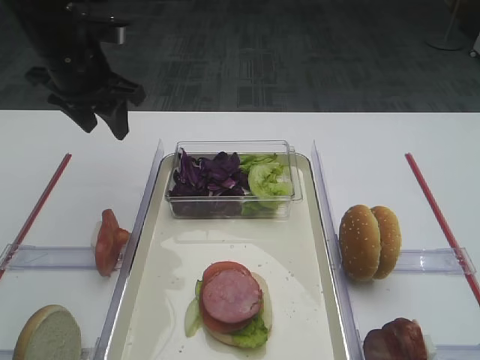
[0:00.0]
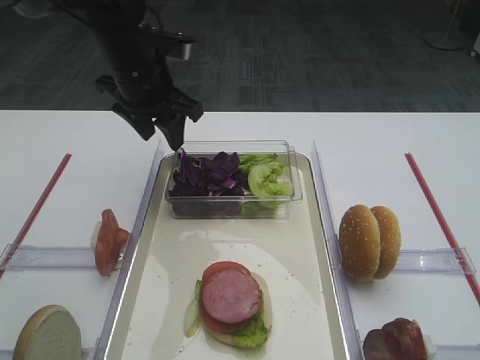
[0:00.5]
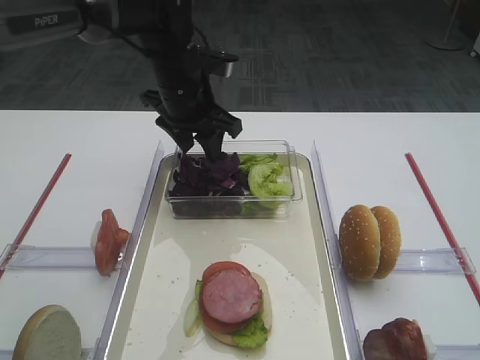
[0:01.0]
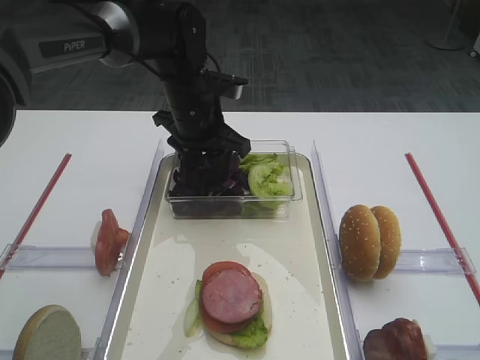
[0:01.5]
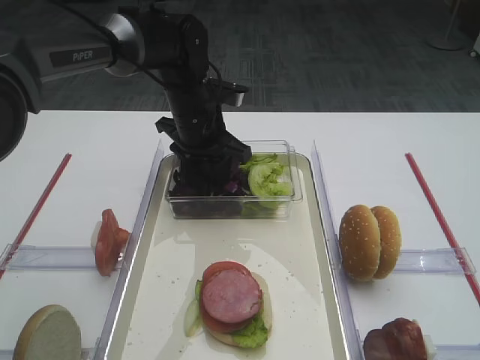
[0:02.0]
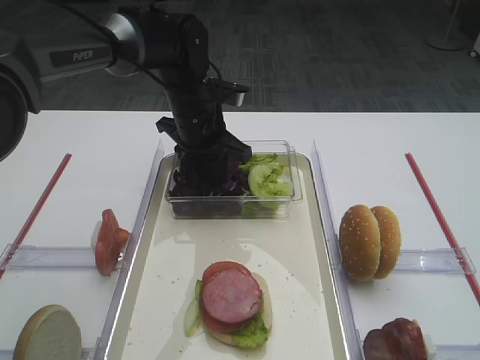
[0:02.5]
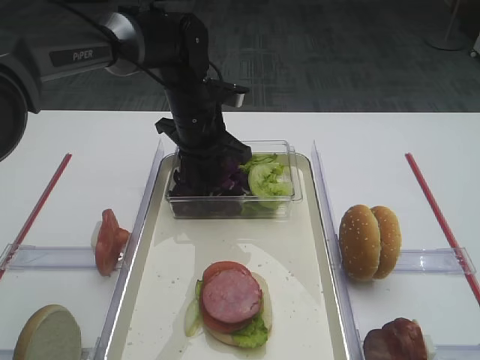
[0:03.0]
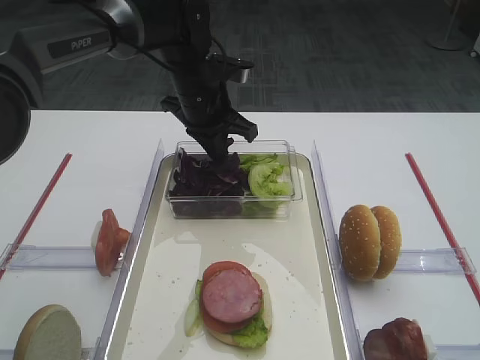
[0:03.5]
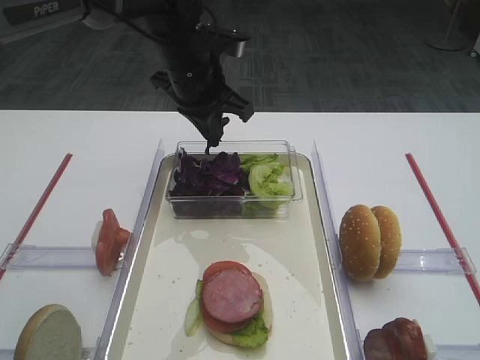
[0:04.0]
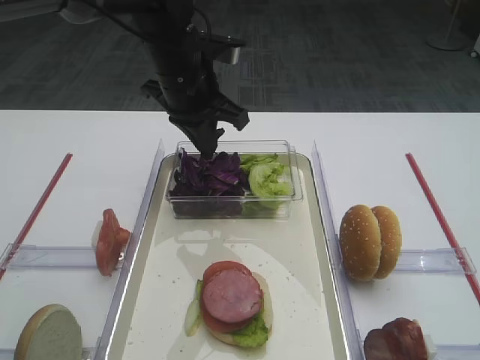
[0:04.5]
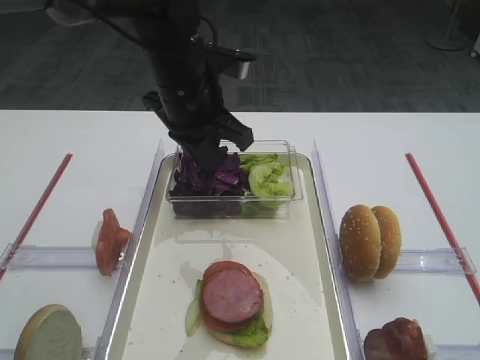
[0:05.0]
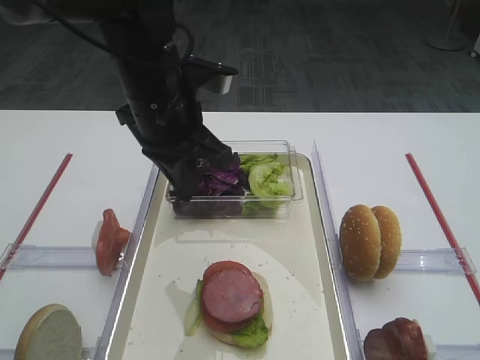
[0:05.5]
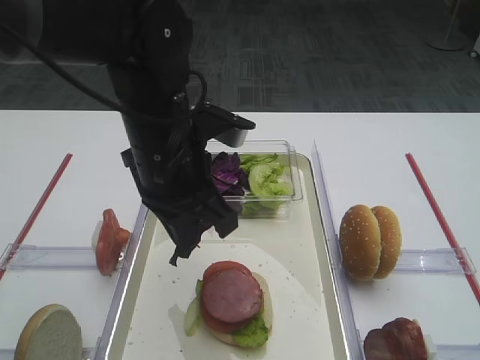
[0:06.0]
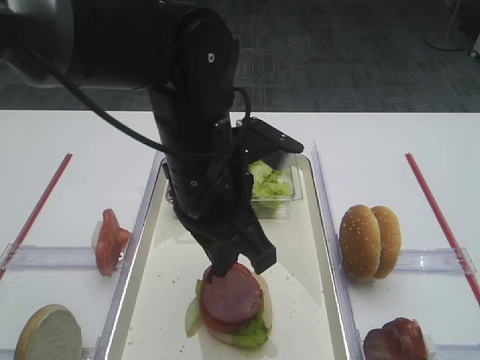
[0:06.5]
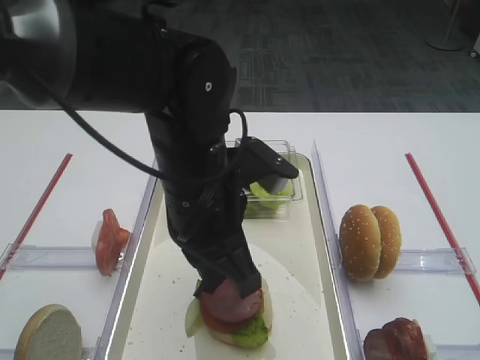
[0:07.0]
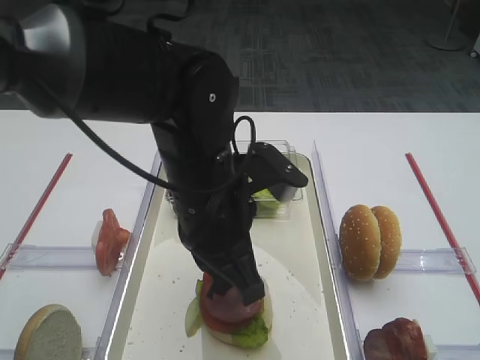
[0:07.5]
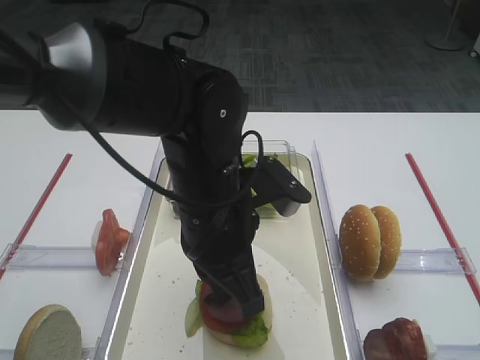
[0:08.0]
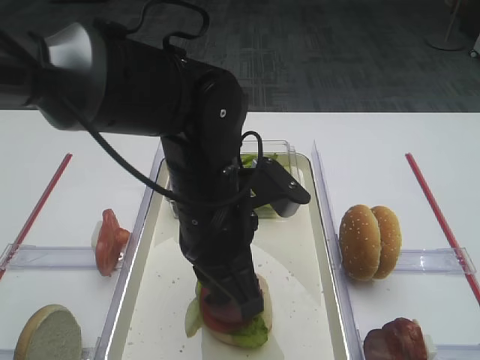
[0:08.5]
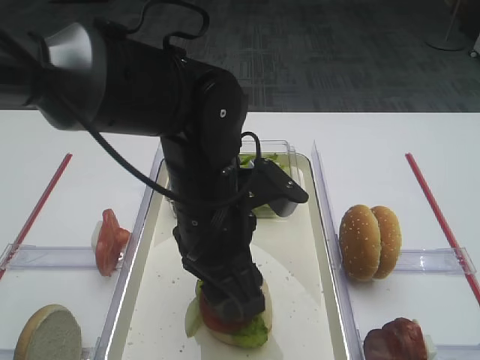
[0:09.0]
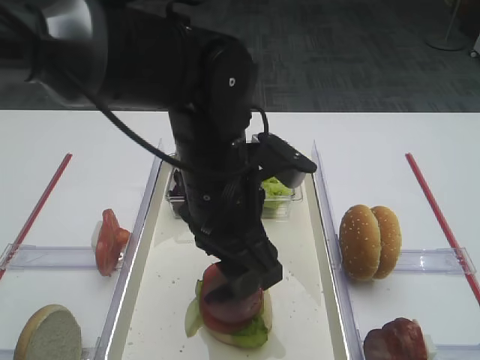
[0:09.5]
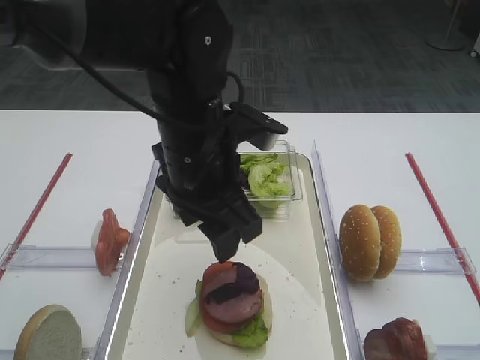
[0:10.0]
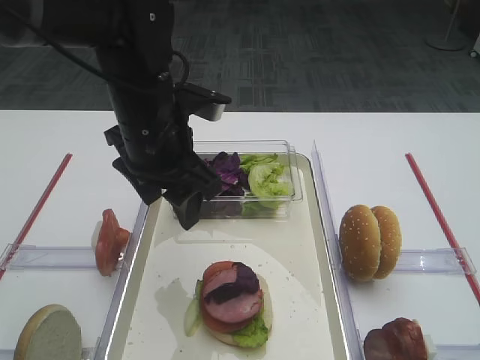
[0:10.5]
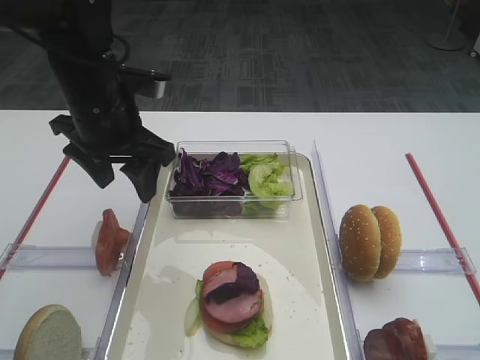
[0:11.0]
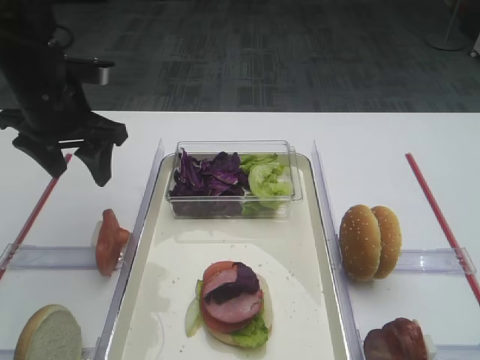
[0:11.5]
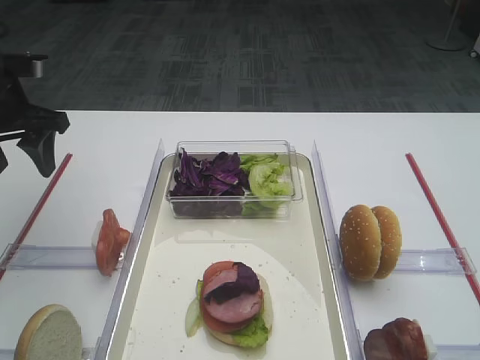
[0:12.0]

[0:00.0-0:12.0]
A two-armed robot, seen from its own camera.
Step, 0:00.0 to 0:04.0: Pick up the purple cabbage with the left gripper.
Step, 0:04.5 to 0:09.5: Place the purple cabbage on the cutlet with the left gripper.
0:00.0 to 0:02.0: The left gripper heads to the right and downward, covering roughly 15 cm.
0:02.0 to 0:04.0: The left gripper shifts about 5 cm upward, and closes its fingers.
0:04.0 to 0:06.0: The left gripper travels backward by approximately 15 cm.
0:06.0 to 0:08.0: The left gripper moves about 5 cm.
0:08.0 to 0:10.0: The left gripper moves about 5 cm, and opens.
0:10.0 to 0:12.0: The left gripper is displaced to the left by about 25 cm.

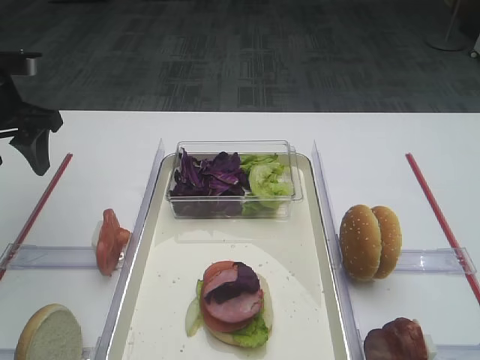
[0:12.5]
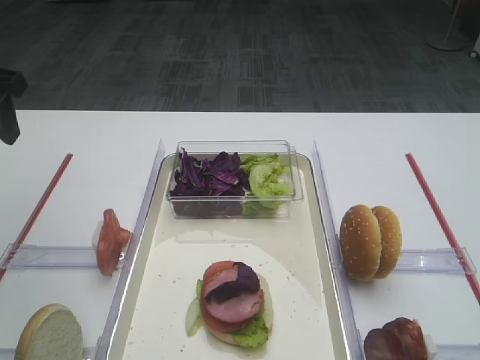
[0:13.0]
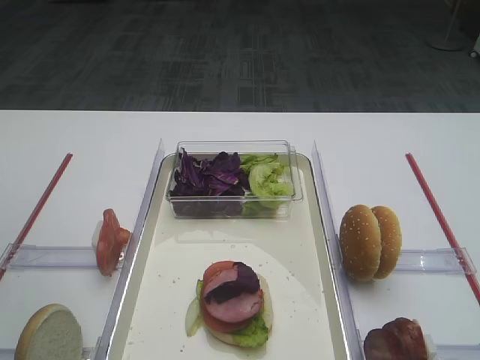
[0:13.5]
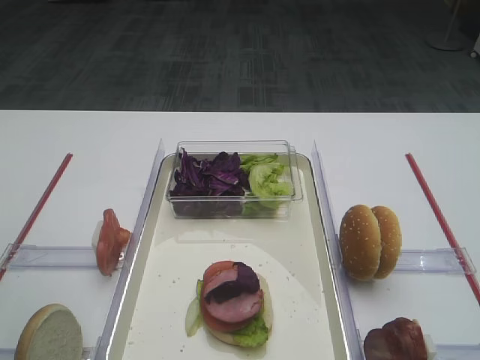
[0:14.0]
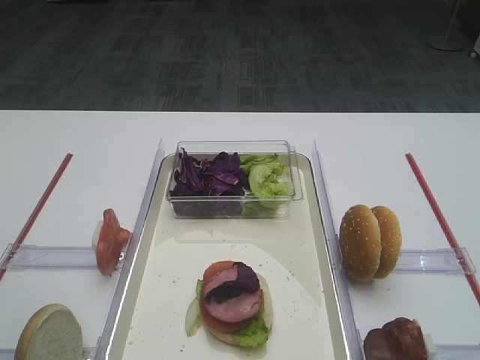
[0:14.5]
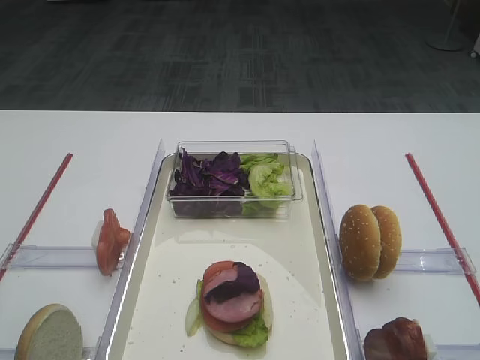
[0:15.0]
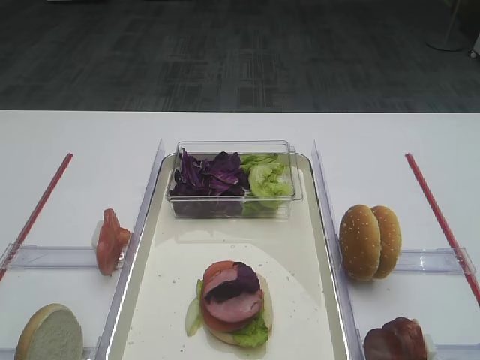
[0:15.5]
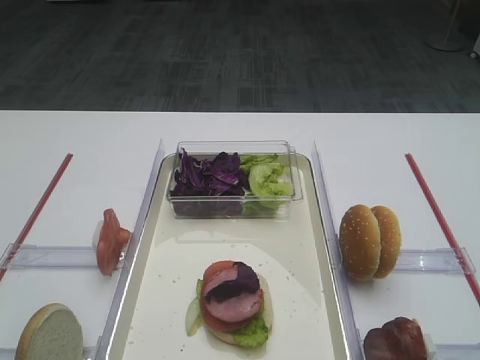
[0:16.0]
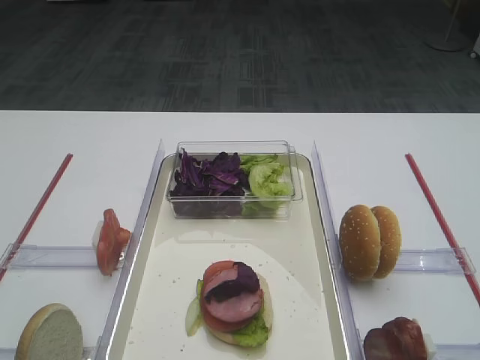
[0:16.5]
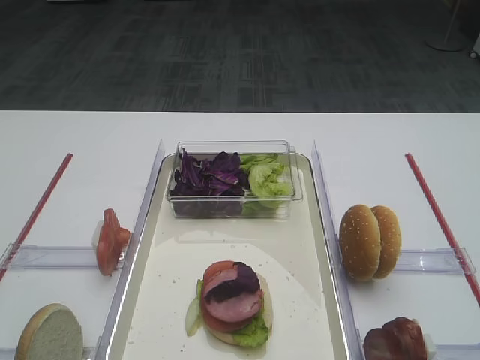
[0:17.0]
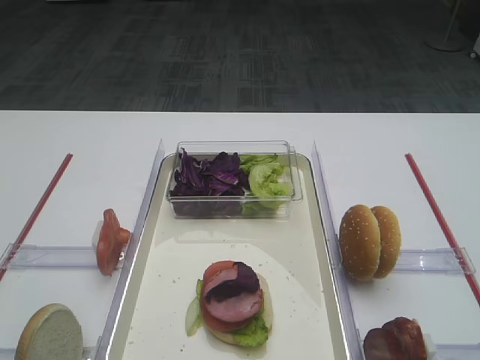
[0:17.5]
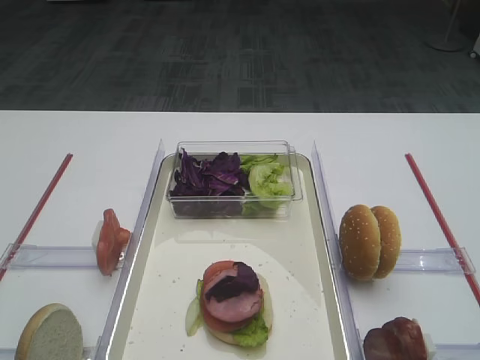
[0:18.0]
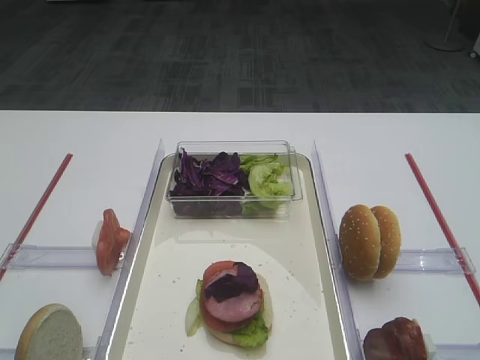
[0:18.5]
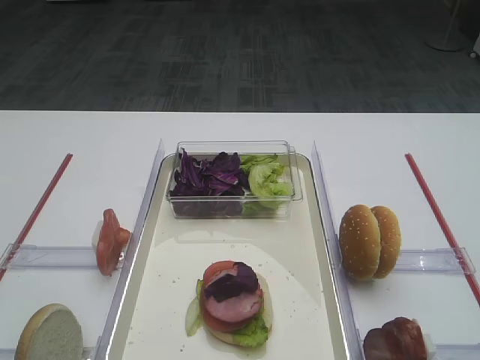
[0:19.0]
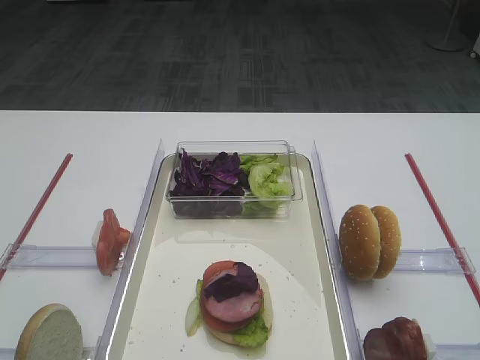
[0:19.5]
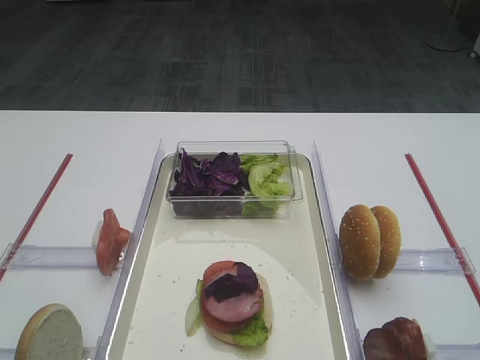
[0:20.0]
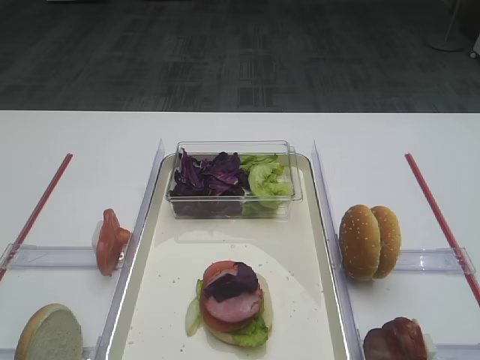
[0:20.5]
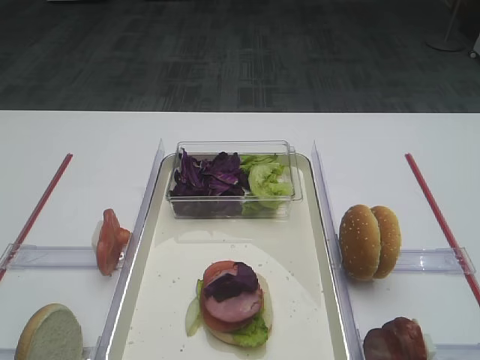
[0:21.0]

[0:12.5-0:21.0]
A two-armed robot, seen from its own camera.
0:12.5 to 0:14.5: The left gripper travels backward by about 20 cm.
0:19.0 to 0:21.0: The two grippers keep their place.

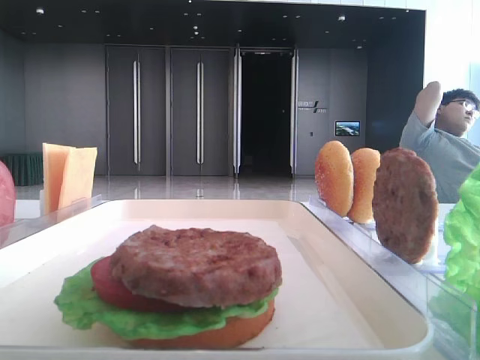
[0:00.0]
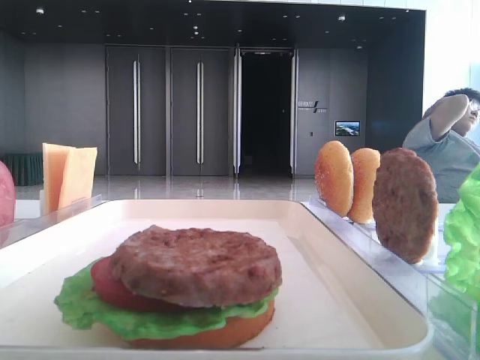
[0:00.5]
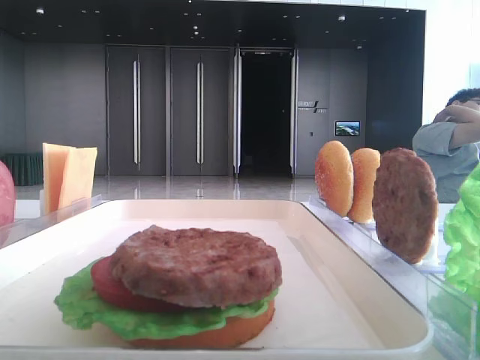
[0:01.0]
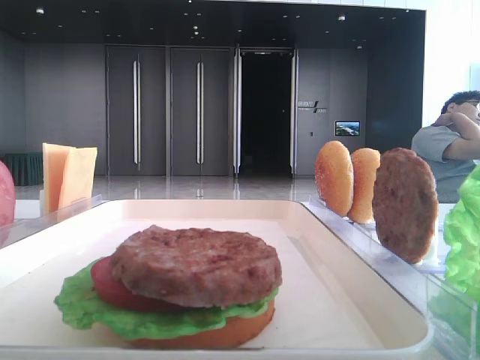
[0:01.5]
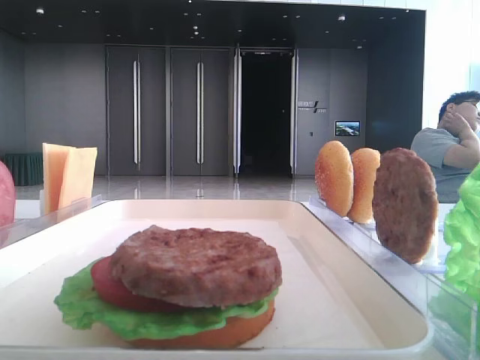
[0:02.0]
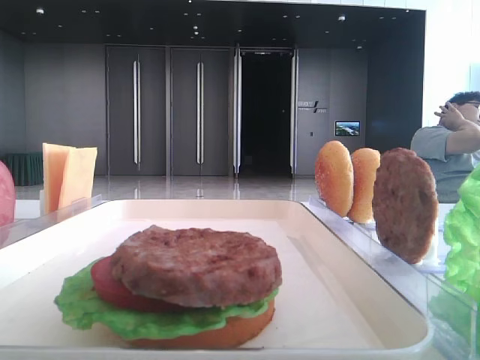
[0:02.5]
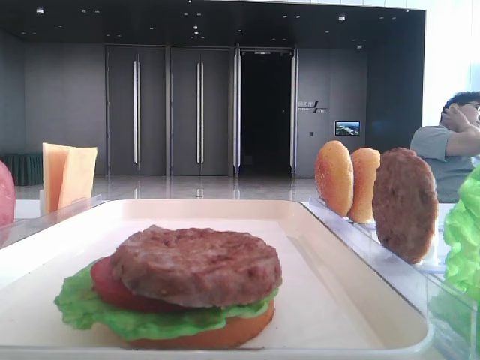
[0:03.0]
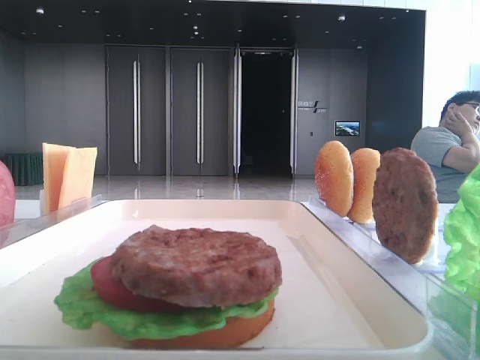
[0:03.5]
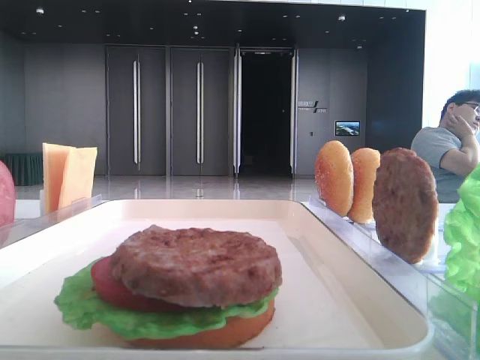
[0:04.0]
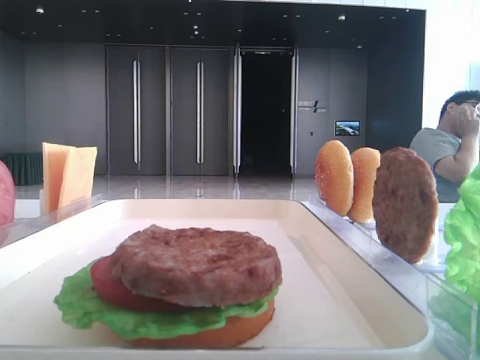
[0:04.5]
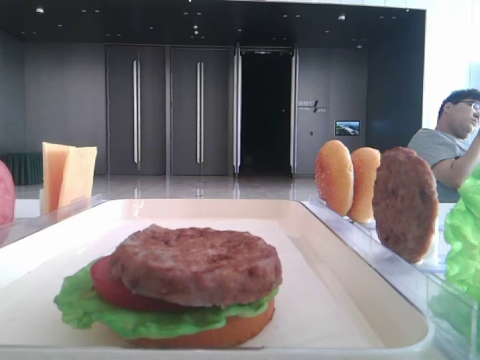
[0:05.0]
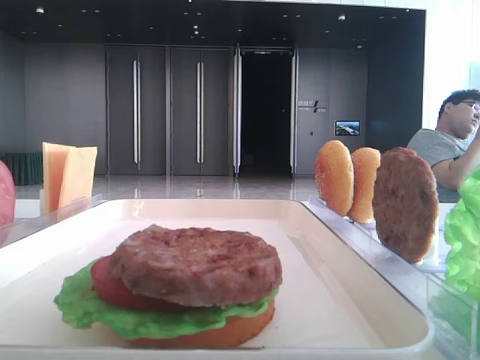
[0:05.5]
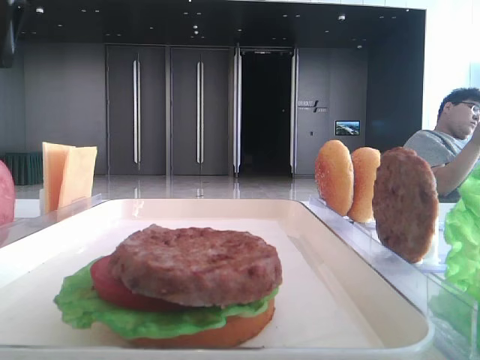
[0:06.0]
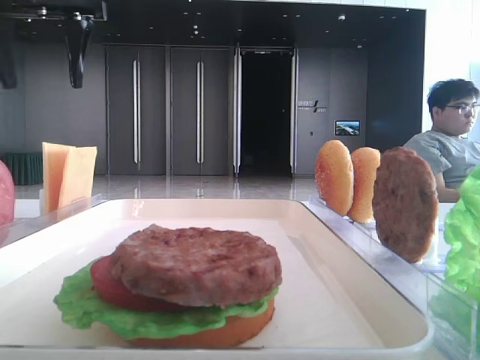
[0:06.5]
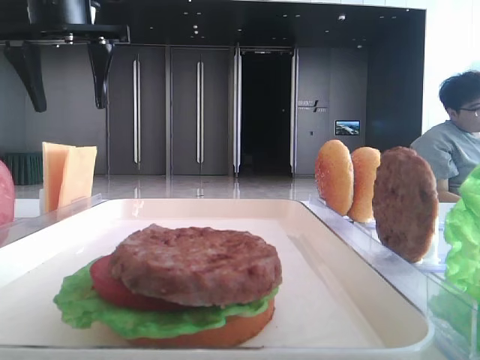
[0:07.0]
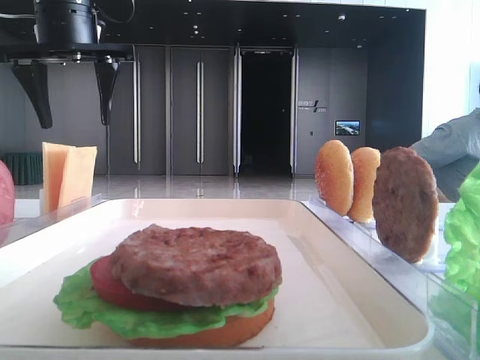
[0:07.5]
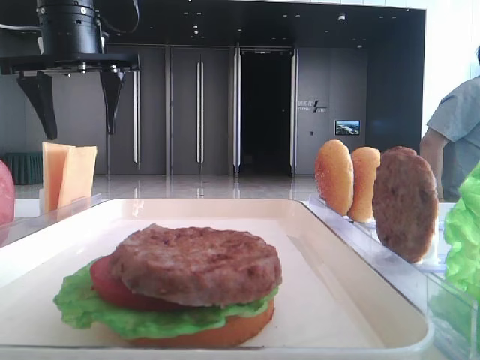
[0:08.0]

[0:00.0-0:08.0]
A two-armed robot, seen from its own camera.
0:04.0 to 0:06.0: The left gripper heads forward, covering approximately 30 cm.
0:06.0 to 0:08.0: The left gripper is displaced to the right, downward and forward by some 10 cm.
